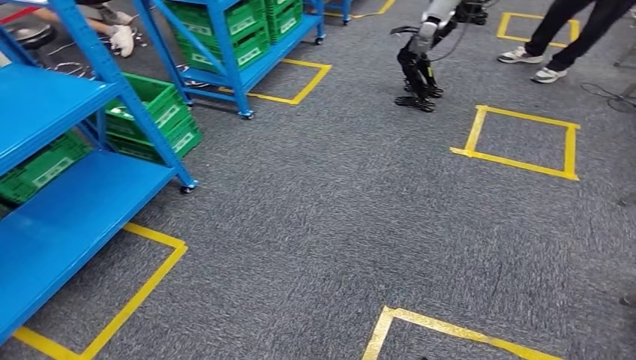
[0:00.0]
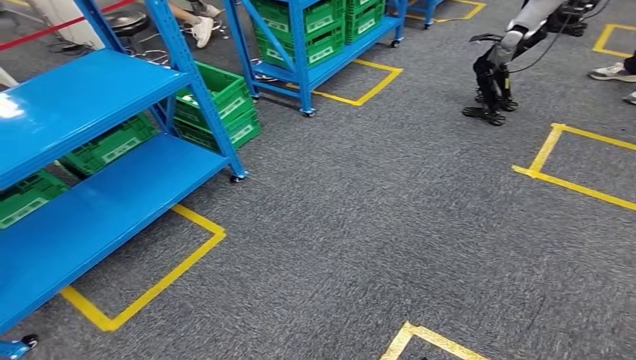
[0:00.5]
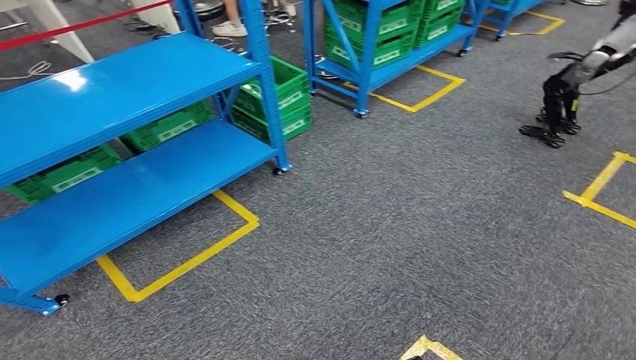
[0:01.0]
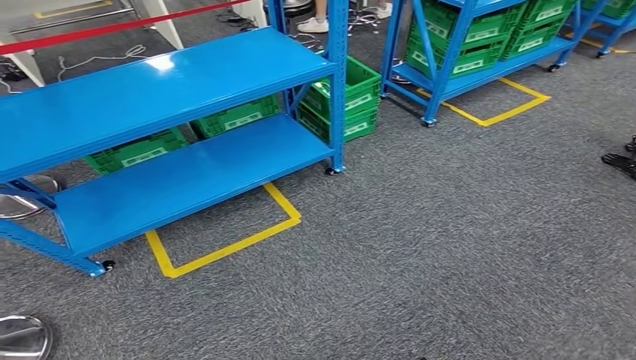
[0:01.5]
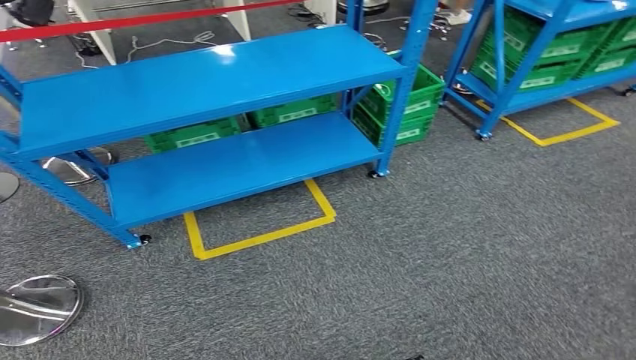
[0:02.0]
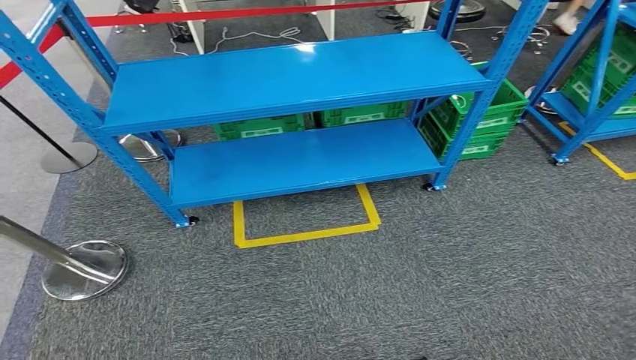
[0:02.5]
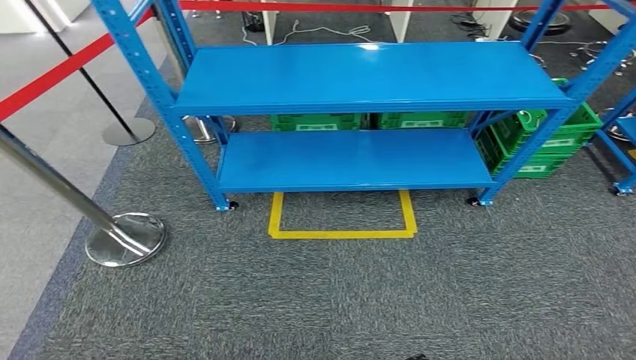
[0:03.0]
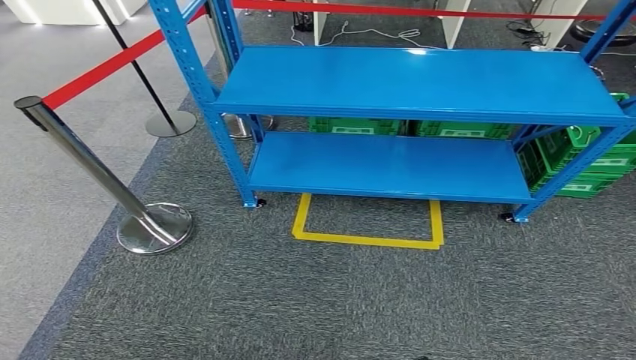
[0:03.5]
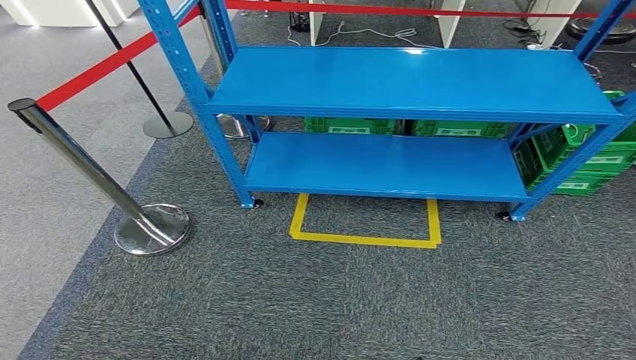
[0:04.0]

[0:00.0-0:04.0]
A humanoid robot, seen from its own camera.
Step, 0:00.0 to 0:04.0: Move to the initial position at the workbench.
